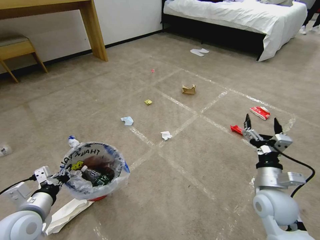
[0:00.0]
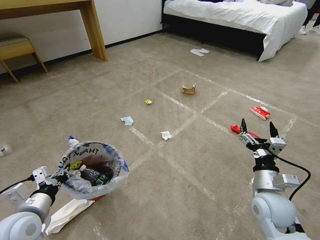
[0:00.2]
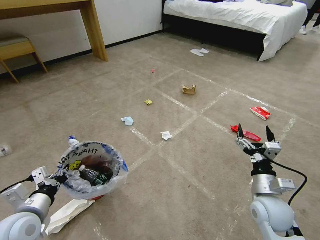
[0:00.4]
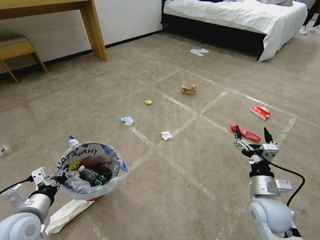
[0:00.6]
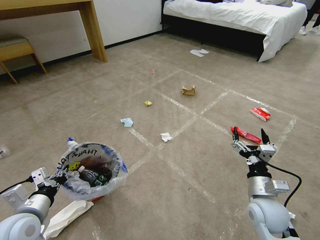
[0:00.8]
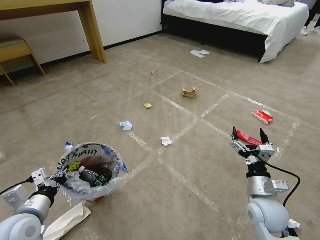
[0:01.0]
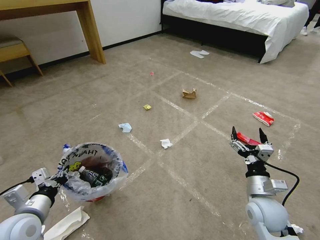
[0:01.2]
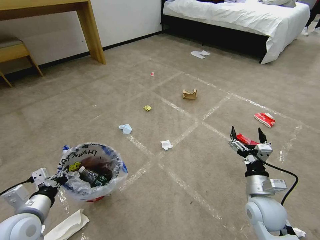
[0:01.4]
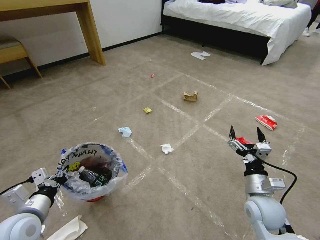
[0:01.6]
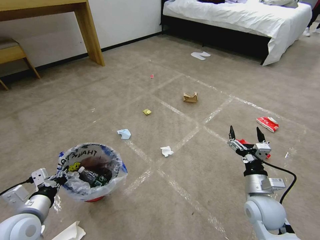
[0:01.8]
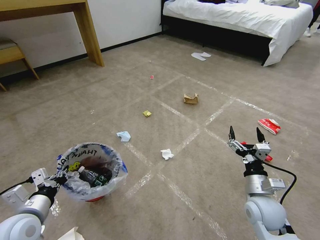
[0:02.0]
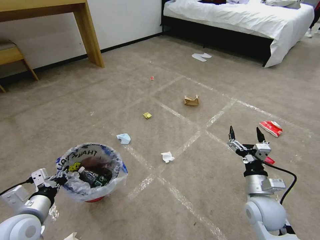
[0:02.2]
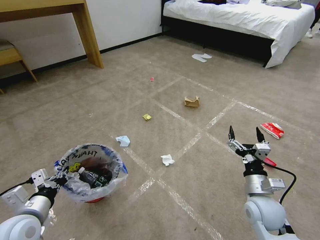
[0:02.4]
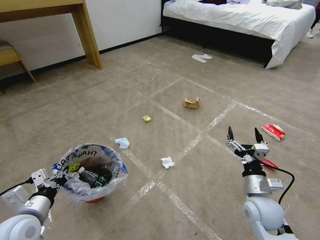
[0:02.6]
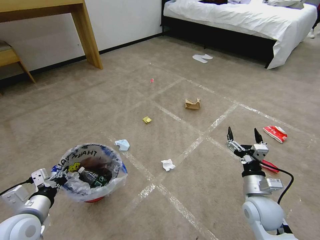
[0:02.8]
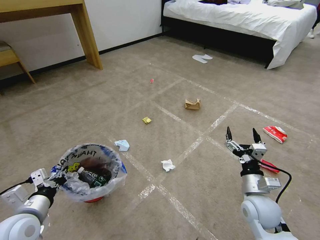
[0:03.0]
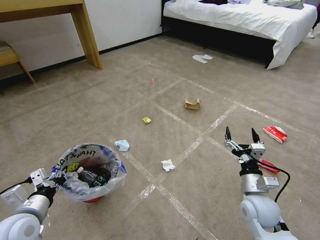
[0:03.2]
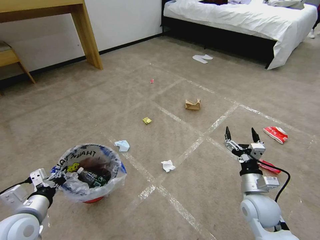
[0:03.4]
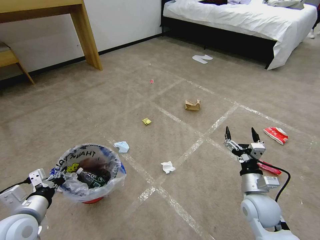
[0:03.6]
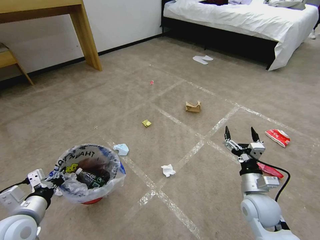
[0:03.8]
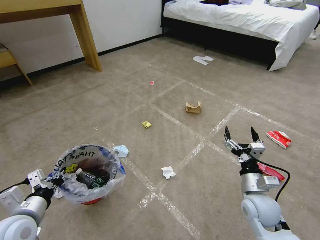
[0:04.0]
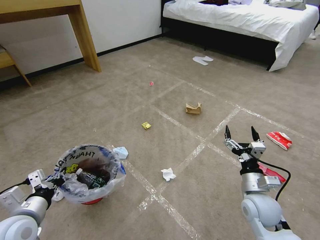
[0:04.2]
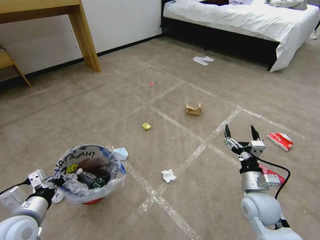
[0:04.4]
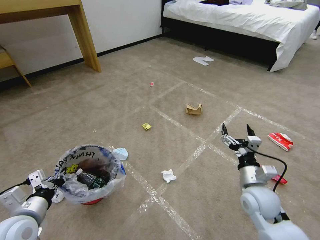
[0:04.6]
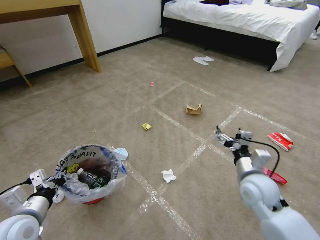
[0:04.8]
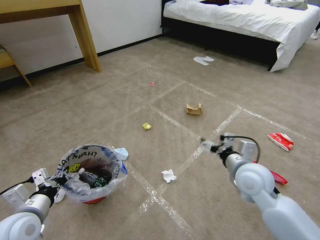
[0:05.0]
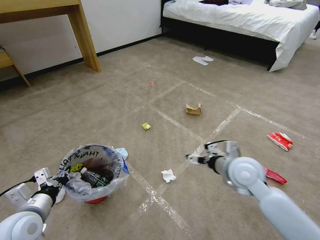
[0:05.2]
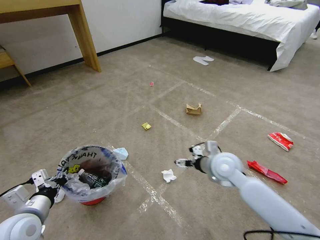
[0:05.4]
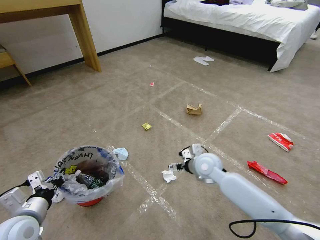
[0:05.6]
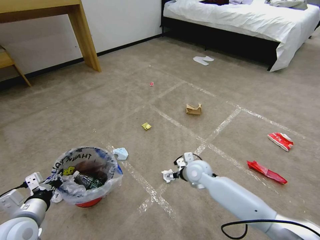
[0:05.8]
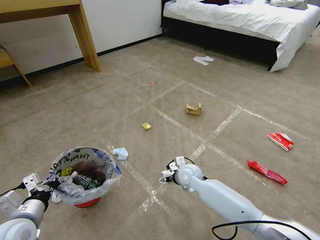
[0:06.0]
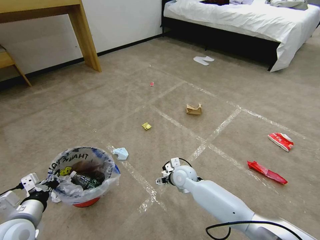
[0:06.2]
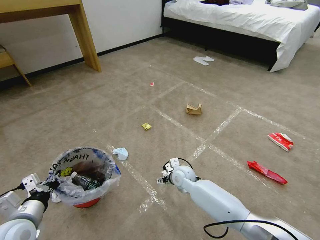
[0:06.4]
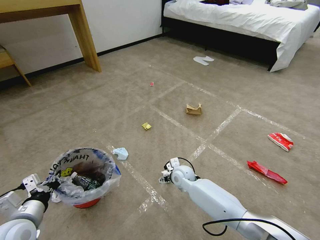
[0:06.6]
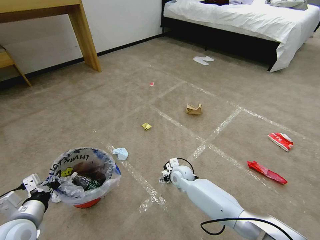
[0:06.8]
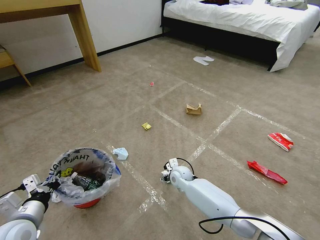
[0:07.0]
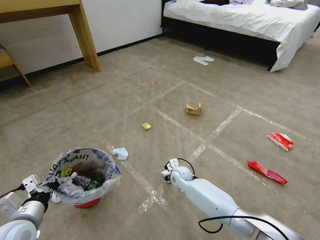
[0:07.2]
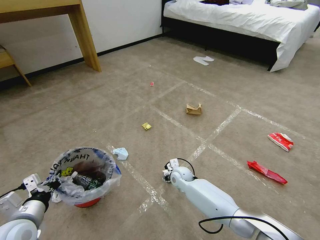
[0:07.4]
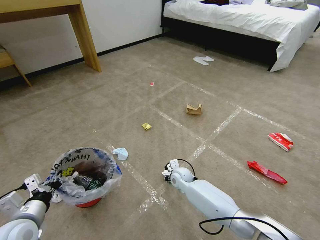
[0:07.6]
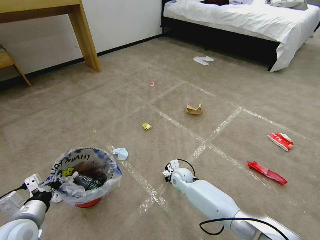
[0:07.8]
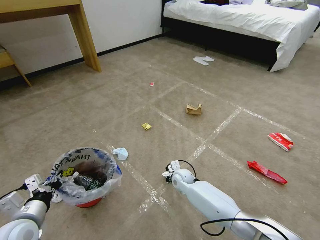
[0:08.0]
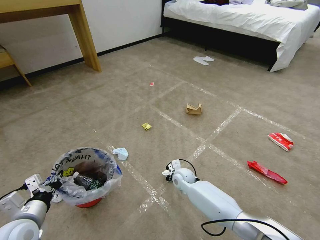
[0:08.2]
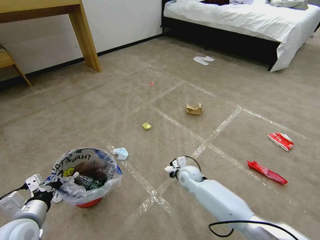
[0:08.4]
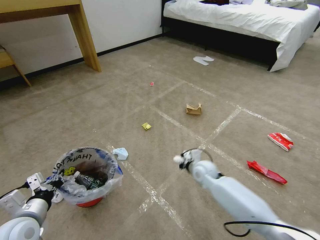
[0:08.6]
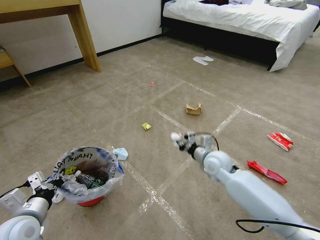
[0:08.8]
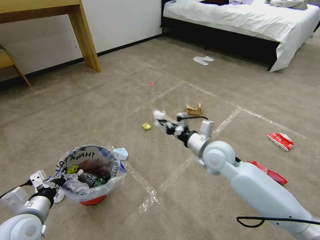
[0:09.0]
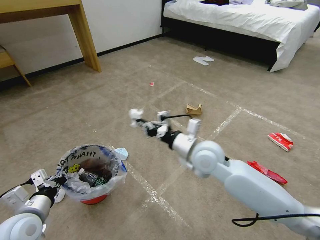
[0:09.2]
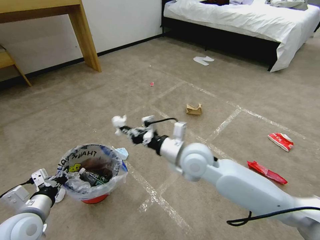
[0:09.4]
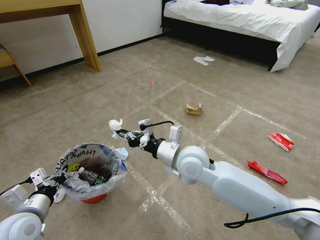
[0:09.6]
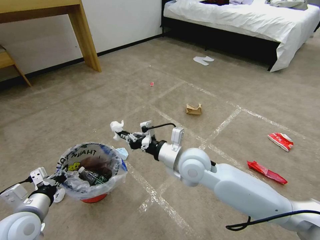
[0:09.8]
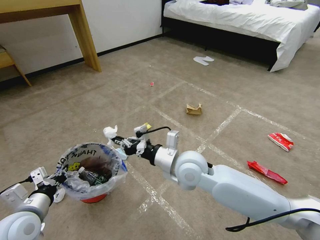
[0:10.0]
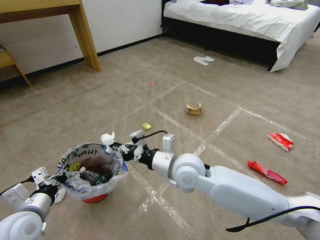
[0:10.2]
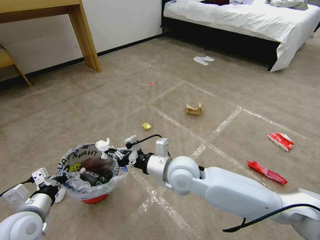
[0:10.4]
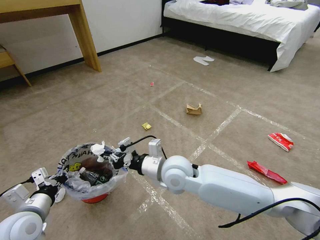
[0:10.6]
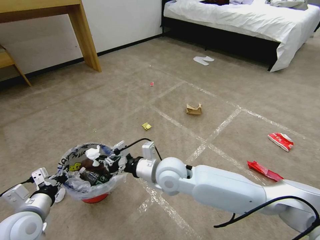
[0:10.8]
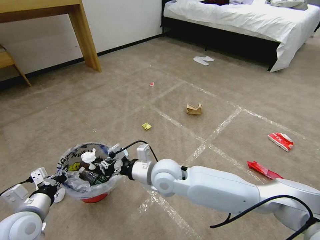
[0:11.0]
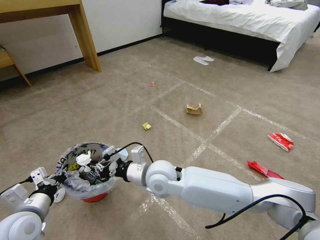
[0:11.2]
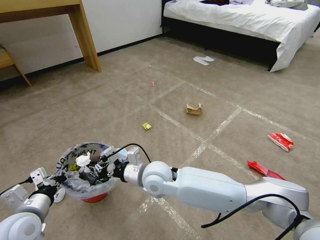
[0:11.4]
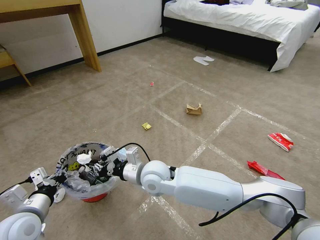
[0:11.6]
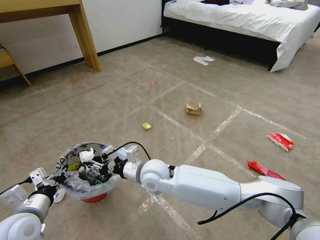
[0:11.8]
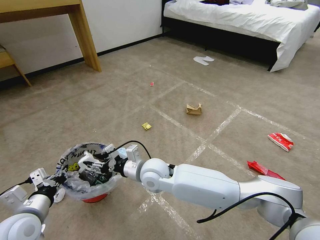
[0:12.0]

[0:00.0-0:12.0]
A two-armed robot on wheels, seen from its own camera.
Task of the whole recording: Pick up the trash bin and place the garbage on the floor into it.
0:01.6 to 0:03.0: The two grippers keep their place.
0:03.0 to 0:04.4: Neither gripper changes place.
0:04.4 to 0:06.0: The right gripper moves to the left and forward, roughly 20 cm.
0:06.0 to 0:07.6: The right gripper goes approximately 5 cm downward, and closes up.
0:07.6 to 0:09.0: The right gripper heads upward, covering about 25 cm, and closes.
0:09.0 to 0:10.4: The right gripper goes roughly 15 cm to the left and backward.
0:10.4 to 0:12.0: The right gripper travels to the left and downward by about 10 cm, and opens.

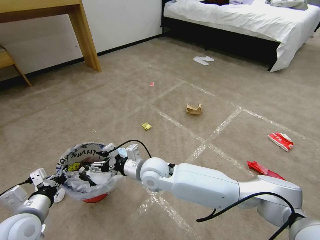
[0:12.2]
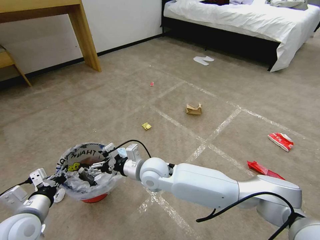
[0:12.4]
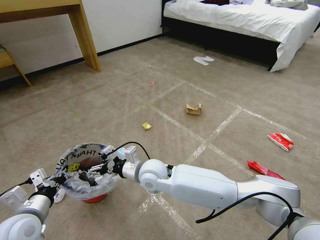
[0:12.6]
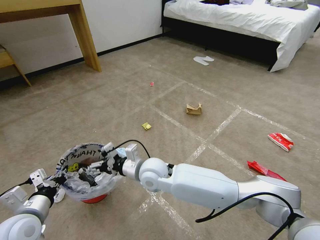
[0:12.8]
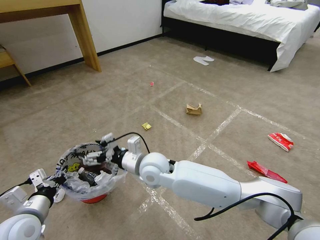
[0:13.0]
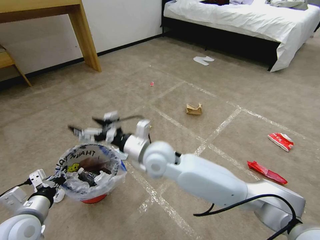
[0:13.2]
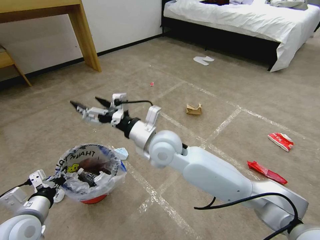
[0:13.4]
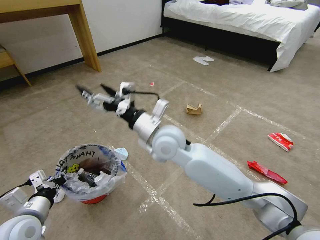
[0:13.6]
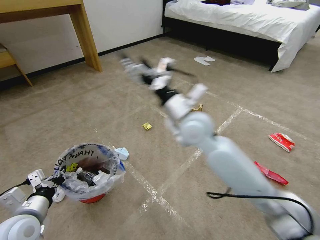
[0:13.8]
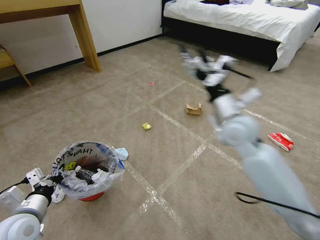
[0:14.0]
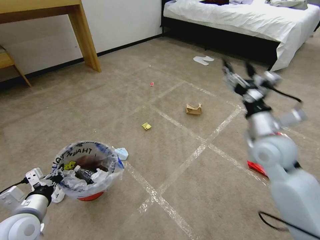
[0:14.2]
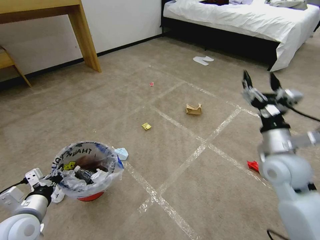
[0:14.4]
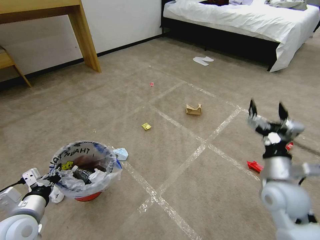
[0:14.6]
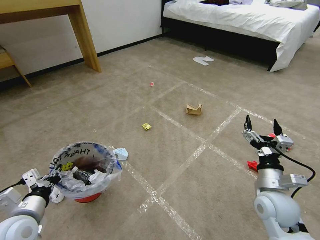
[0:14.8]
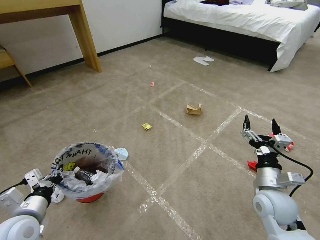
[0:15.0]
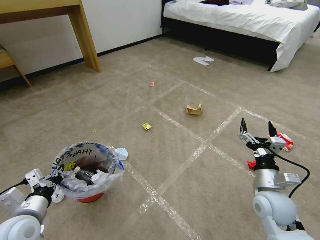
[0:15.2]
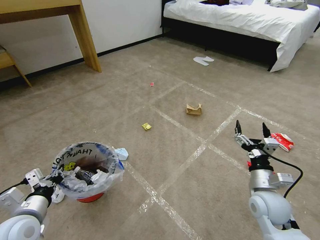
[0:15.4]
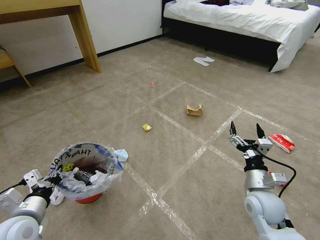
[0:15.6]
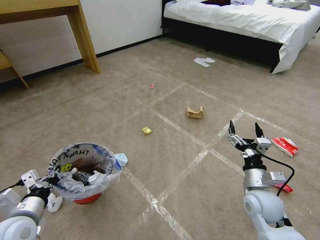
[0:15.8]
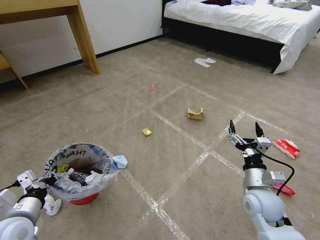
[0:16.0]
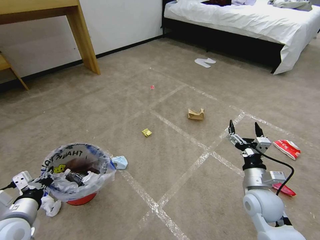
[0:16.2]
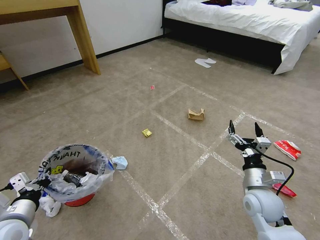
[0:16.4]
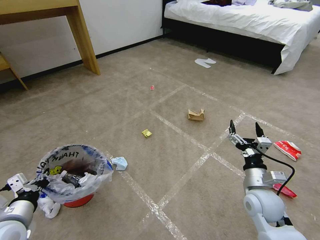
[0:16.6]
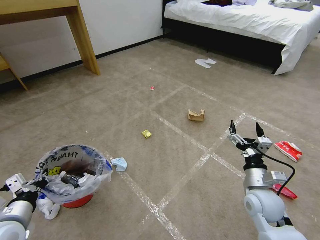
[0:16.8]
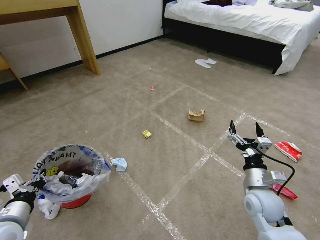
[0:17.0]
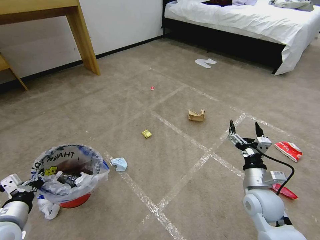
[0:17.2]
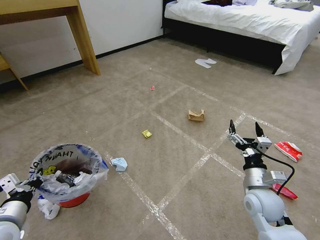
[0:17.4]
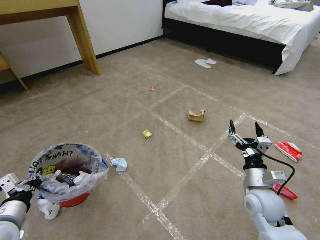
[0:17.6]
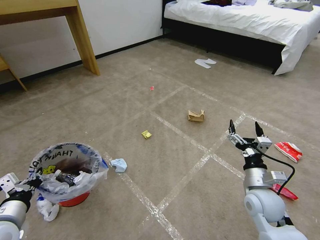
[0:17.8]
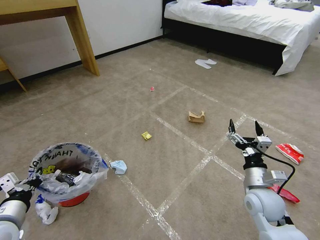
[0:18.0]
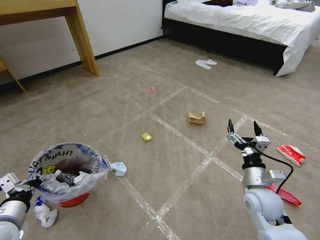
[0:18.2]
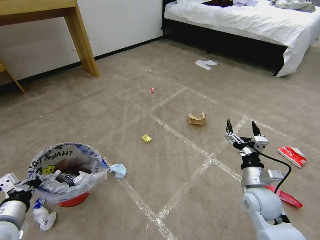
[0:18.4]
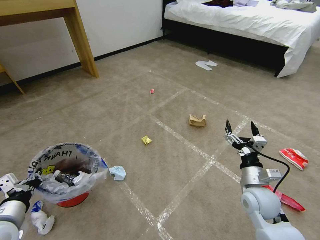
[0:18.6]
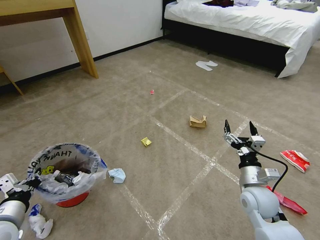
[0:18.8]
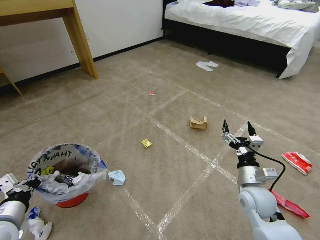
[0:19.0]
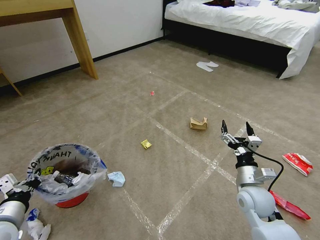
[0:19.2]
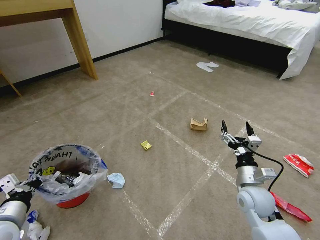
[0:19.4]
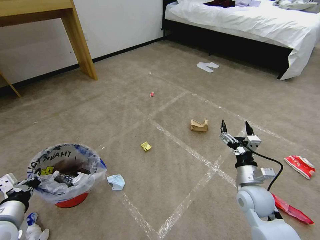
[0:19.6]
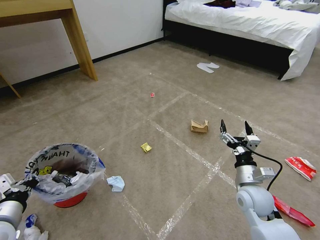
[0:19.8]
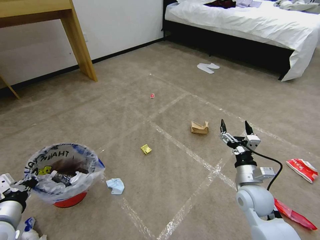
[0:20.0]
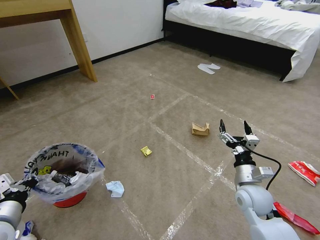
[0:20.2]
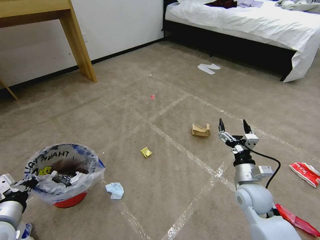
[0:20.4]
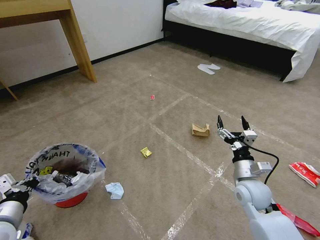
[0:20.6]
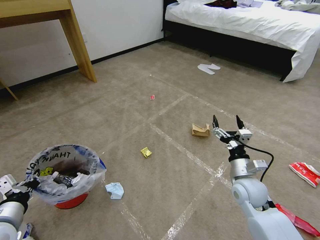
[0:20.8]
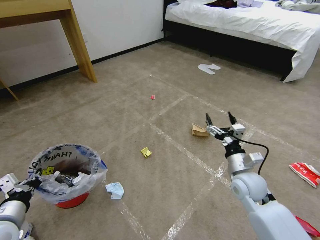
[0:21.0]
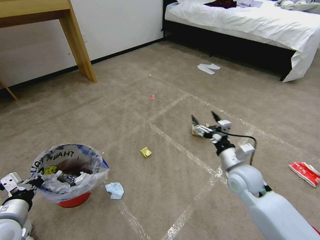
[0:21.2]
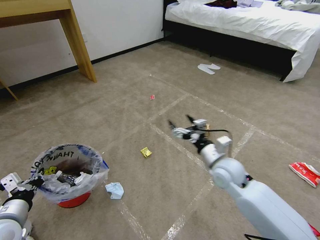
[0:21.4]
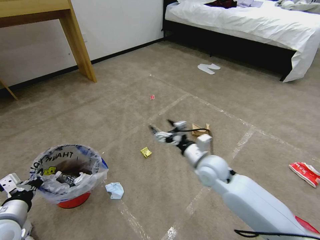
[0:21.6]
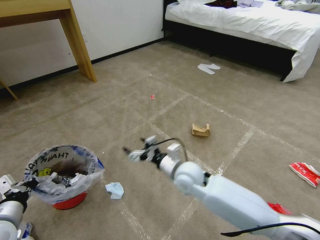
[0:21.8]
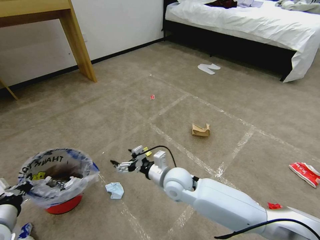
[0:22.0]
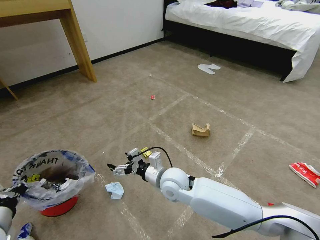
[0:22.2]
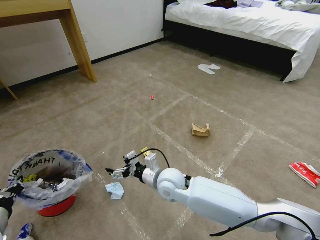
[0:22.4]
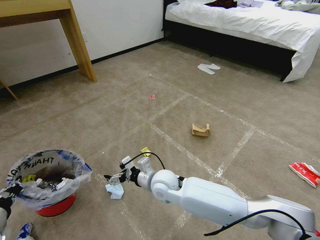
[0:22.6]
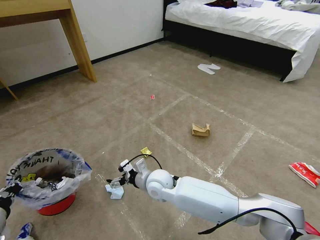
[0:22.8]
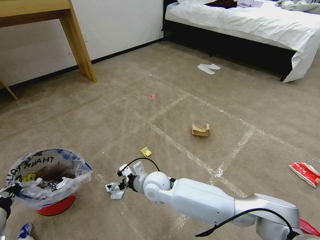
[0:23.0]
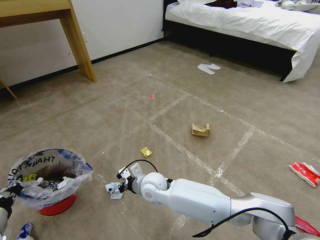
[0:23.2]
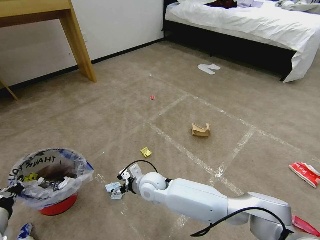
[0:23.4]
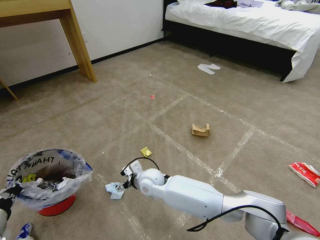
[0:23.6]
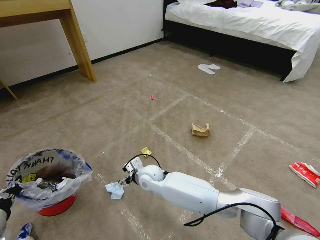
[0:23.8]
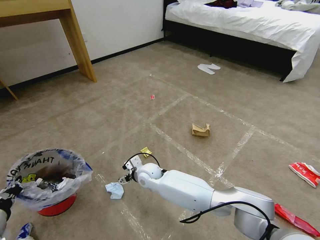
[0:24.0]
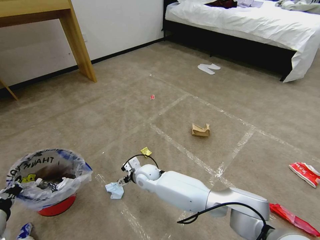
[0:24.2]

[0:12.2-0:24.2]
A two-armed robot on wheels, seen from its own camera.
Task of the whole recording: Pick up the trash bin and place the garbage on the floor into it.
0:12.2 to 0:13.8: The right gripper goes approximately 20 cm upward and to the right.
0:13.8 to 0:15.2: The right gripper heads to the right, downward and backward, covering some 35 cm.
0:16.6 to 0:18.2: There are only small adjustments of the grippers.
0:19.8 to 0:21.2: The right gripper moves forward, roughly 5 cm.
0:21.2 to 0:22.6: The right gripper heads to the left, covering about 25 cm.
0:22.6 to 0:24.2: The right gripper goes roughly 10 cm downward, forward and to the left.
